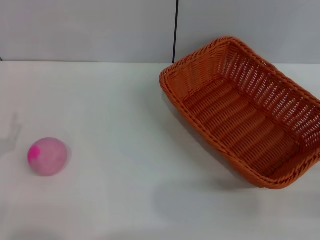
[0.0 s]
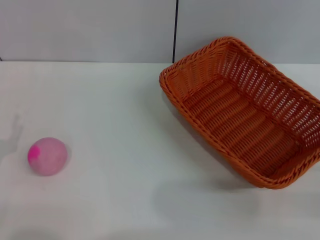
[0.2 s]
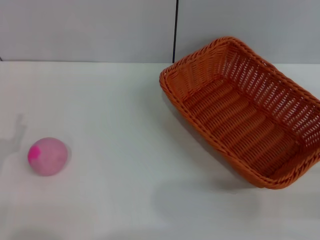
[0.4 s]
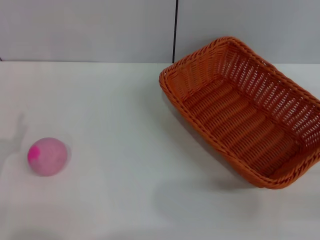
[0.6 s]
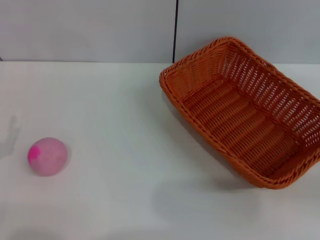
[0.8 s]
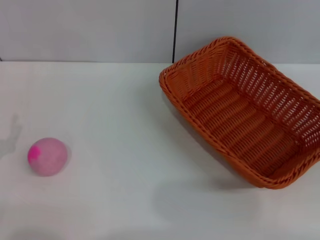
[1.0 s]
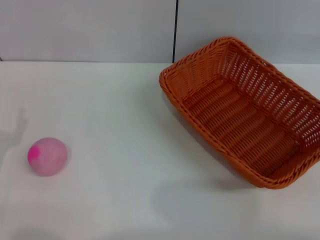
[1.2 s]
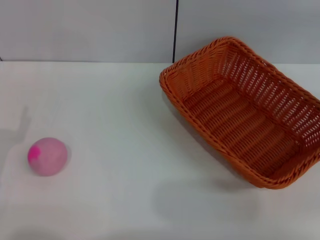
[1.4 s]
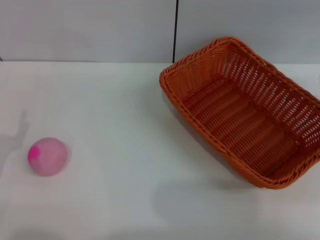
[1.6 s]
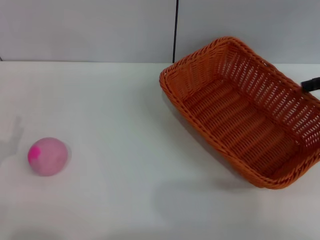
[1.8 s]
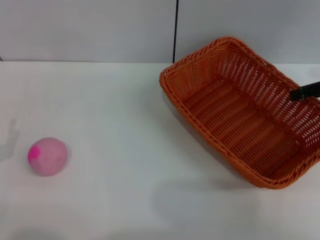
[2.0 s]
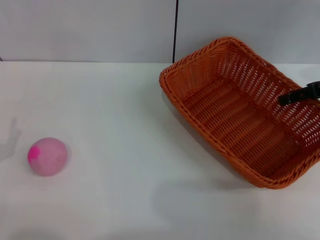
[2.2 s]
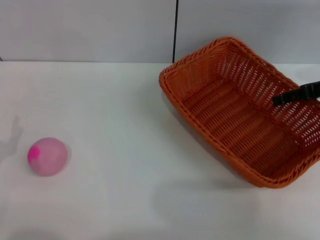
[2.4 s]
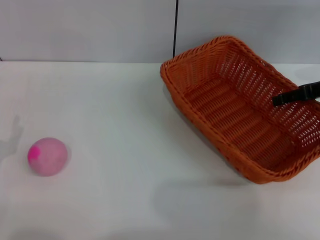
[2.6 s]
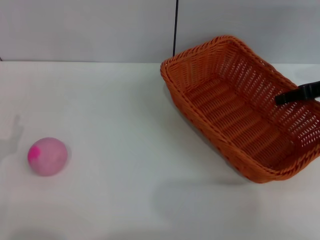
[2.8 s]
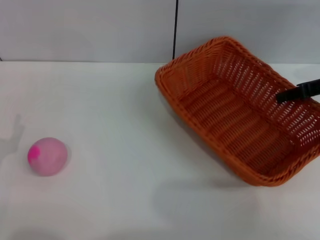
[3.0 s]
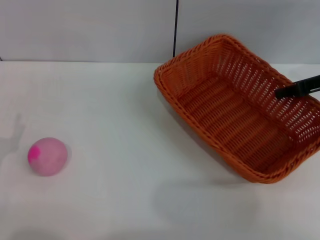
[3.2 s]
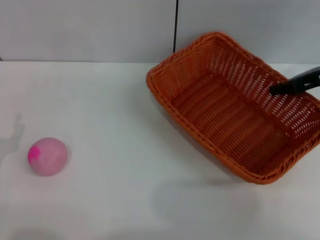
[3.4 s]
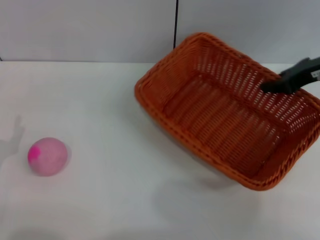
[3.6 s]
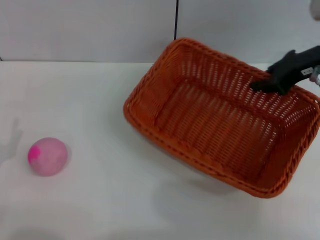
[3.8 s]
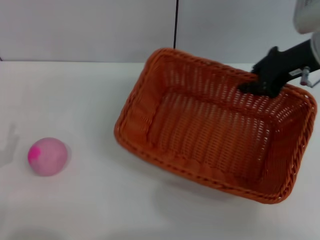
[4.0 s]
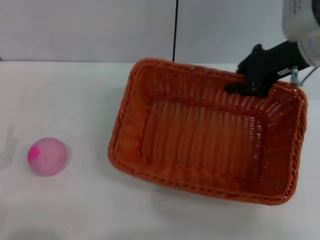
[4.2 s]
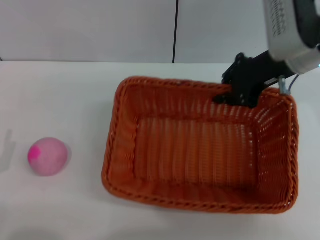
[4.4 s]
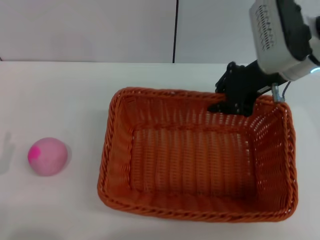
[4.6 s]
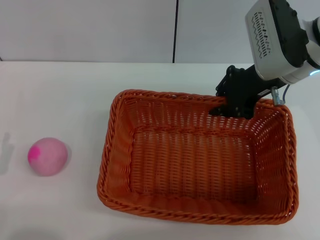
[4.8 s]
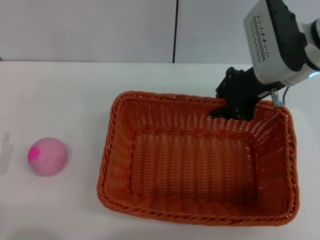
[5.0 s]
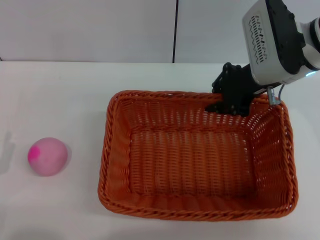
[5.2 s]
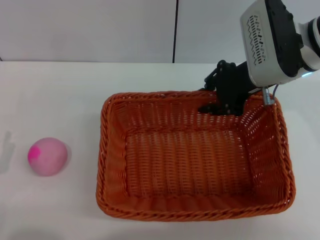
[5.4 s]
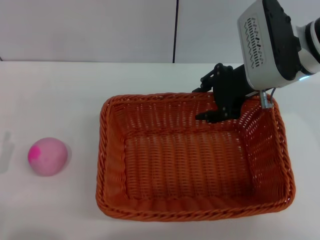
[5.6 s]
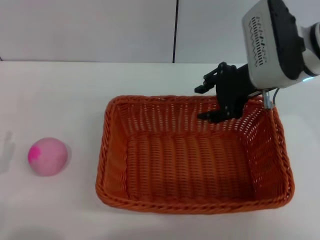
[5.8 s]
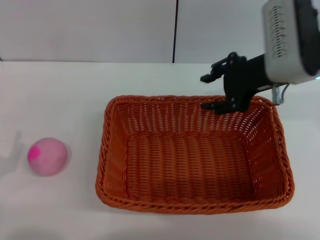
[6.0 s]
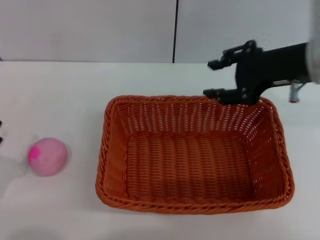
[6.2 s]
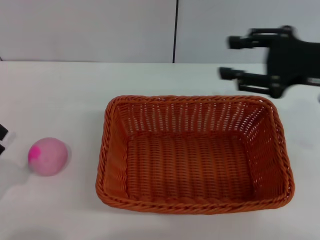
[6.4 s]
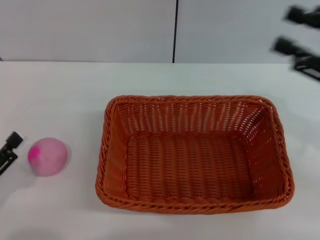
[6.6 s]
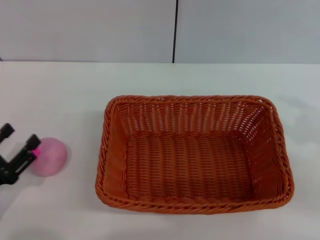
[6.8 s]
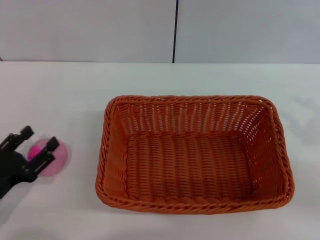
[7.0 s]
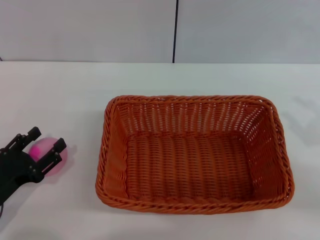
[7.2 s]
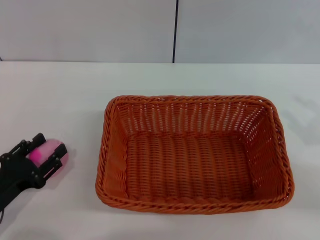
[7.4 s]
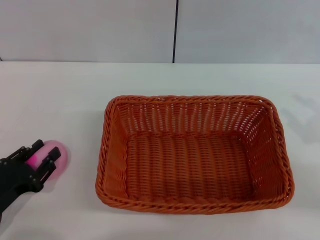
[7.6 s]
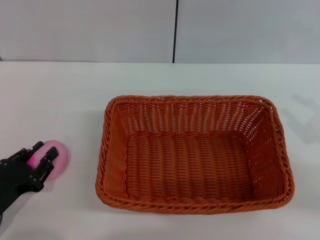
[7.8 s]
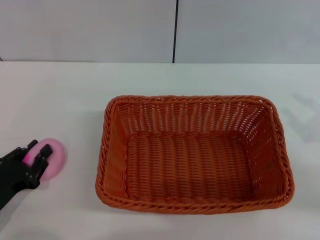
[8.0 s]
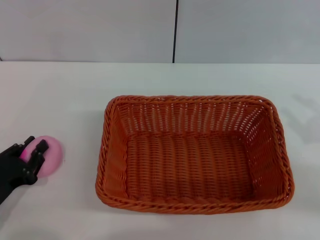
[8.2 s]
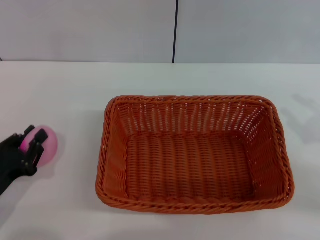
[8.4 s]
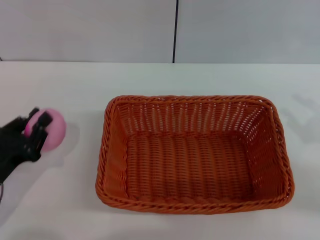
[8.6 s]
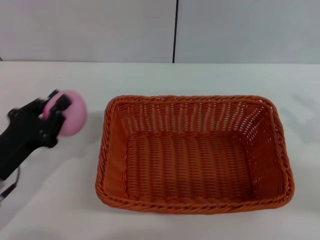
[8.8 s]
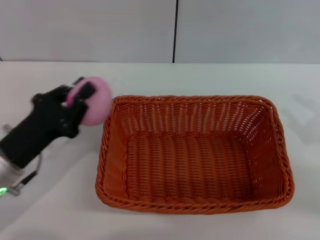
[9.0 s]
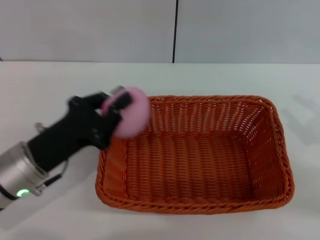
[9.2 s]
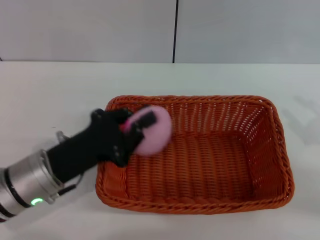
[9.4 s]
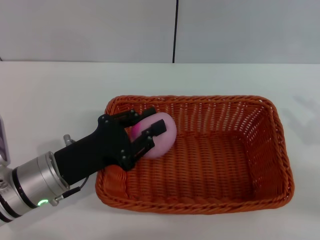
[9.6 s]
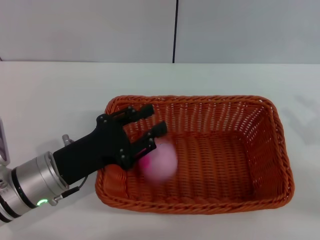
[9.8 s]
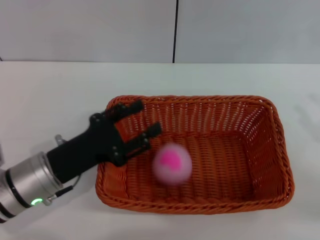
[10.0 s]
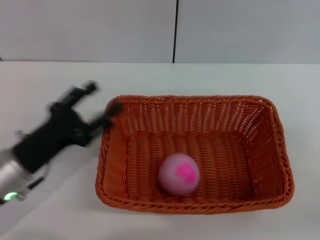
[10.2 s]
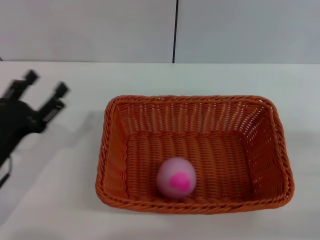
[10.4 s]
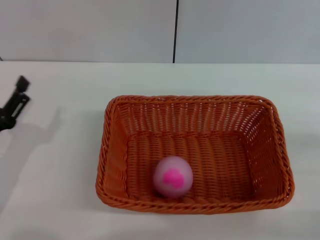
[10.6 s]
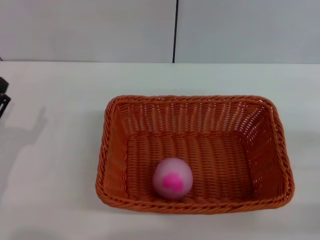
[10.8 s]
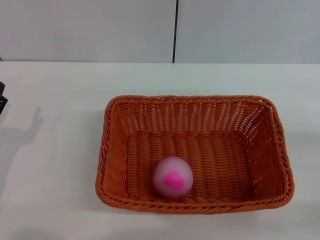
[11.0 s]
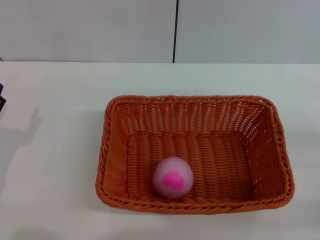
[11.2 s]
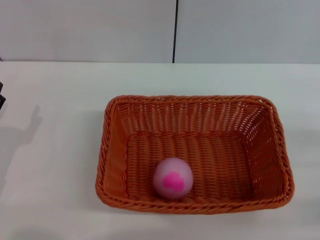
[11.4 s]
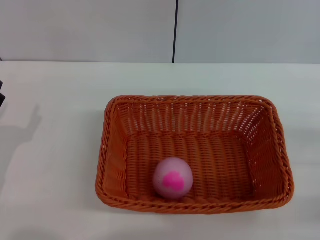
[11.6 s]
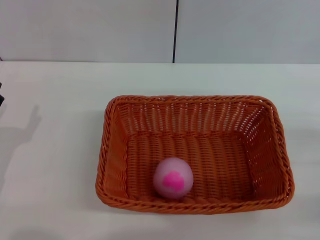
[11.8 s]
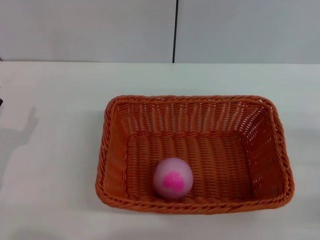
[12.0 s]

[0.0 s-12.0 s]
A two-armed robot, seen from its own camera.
Step, 0.0 to 3.6 s: Pick up the light basket with the right gripper.
Step, 3.8 to 6.0 s: Place the light basket in the center of view with the right gripper.
Step, 6.2 to 8.8 s: Pick up the peach with the left gripper.
Step, 9.0 to 10.0 s: Place the peach into the basket with the left gripper.
1.6 to 3.0 s: The right gripper goes roughly 10 cm to the left and downward, and closes up.
3.0 to 4.4 s: The right gripper goes about 10 cm to the left, and closes.
4.4 to 6.0 s: The right gripper opens.
6.0 to 7.6 s: The right gripper travels to the right, backward and downward by about 20 cm.
7.6 to 9.0 s: The left gripper heads forward, upward and to the right, covering about 10 cm, and closes its fingers.
9.0 to 10.4 s: The left gripper goes to the right and returns, approximately 5 cm each way, and opens. Meanwhile the right gripper ends up roughly 5 cm from where it was.

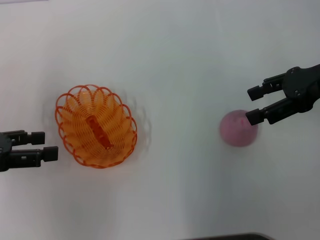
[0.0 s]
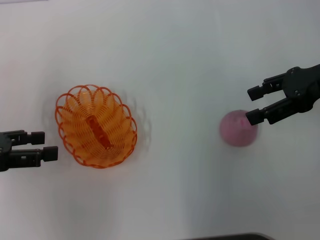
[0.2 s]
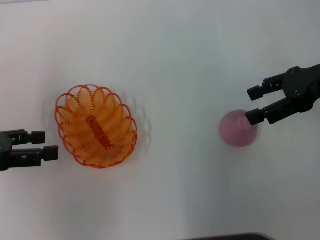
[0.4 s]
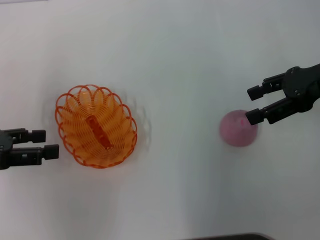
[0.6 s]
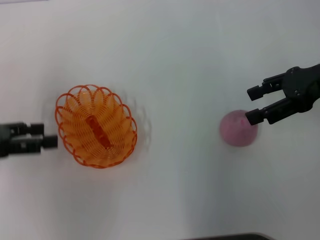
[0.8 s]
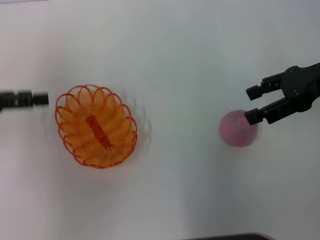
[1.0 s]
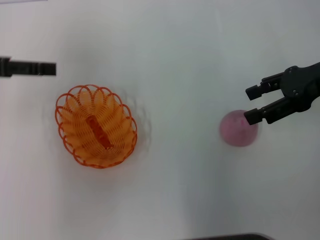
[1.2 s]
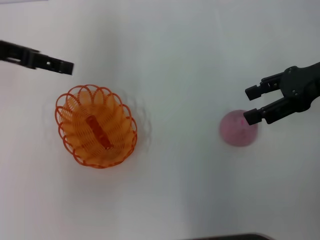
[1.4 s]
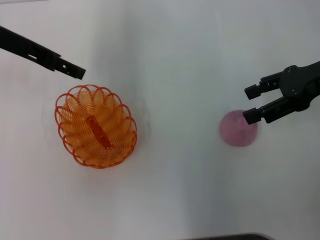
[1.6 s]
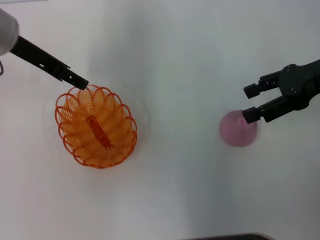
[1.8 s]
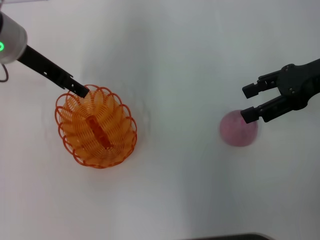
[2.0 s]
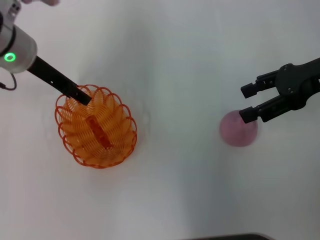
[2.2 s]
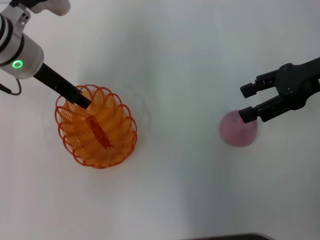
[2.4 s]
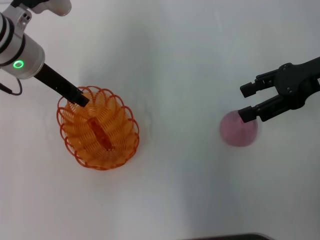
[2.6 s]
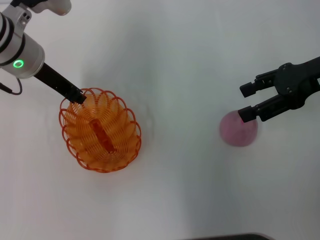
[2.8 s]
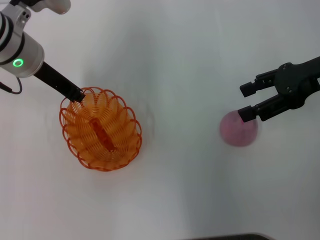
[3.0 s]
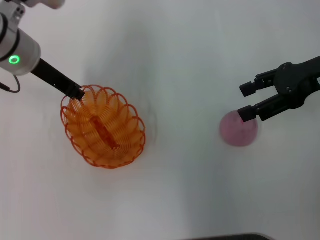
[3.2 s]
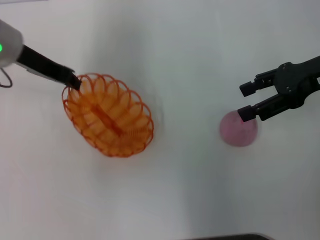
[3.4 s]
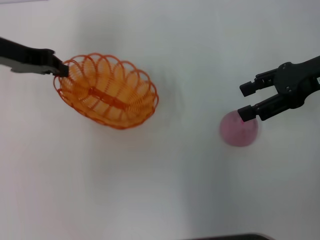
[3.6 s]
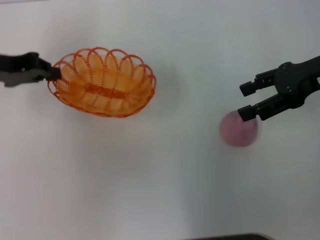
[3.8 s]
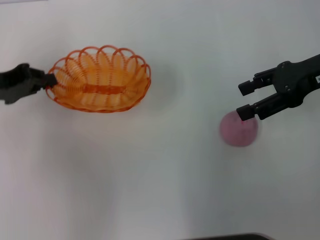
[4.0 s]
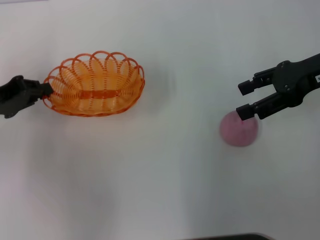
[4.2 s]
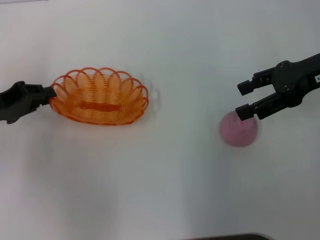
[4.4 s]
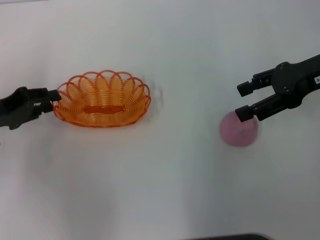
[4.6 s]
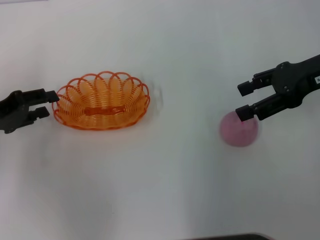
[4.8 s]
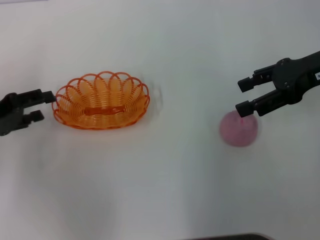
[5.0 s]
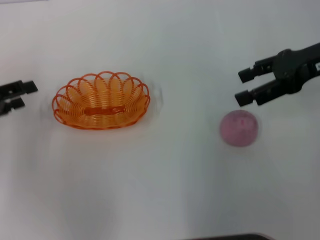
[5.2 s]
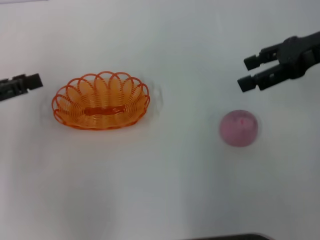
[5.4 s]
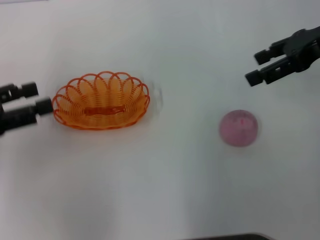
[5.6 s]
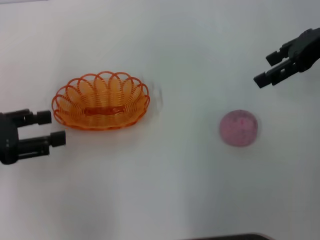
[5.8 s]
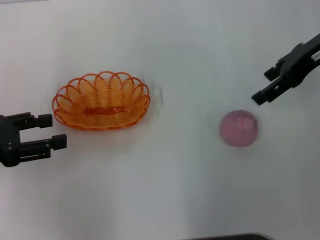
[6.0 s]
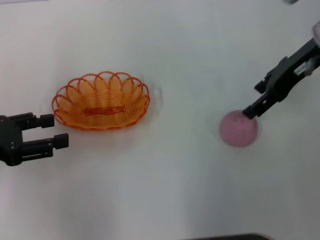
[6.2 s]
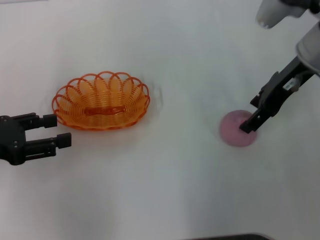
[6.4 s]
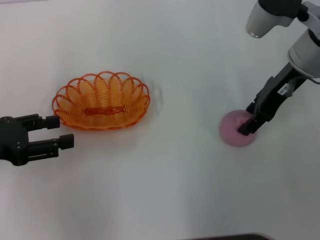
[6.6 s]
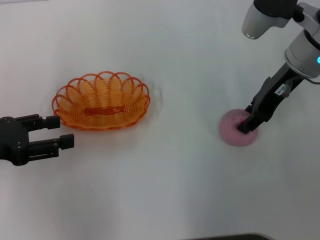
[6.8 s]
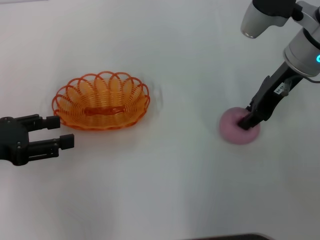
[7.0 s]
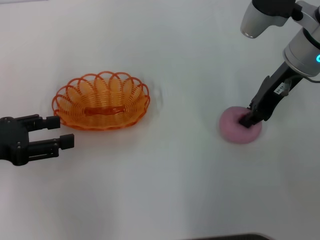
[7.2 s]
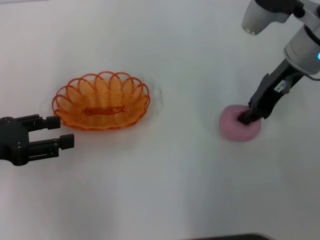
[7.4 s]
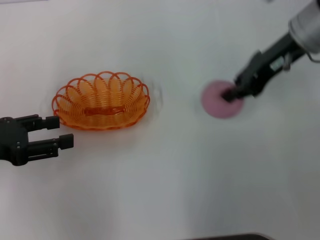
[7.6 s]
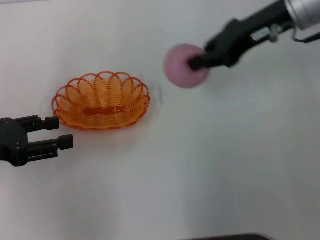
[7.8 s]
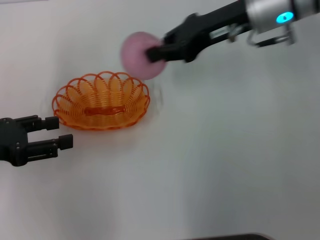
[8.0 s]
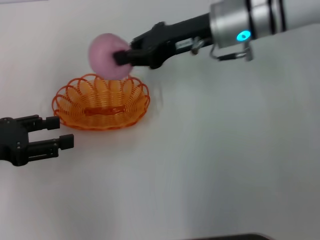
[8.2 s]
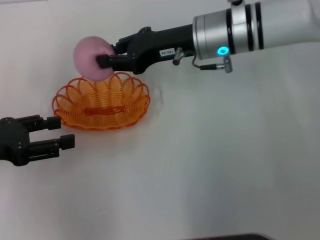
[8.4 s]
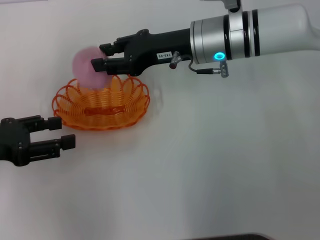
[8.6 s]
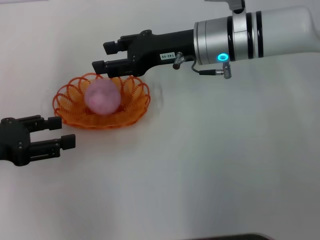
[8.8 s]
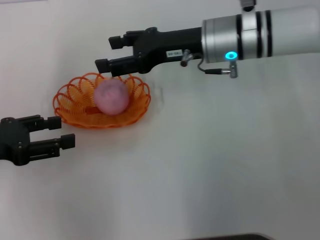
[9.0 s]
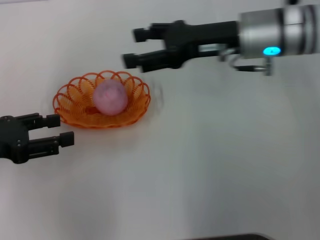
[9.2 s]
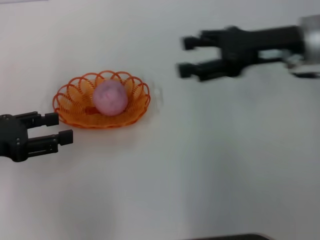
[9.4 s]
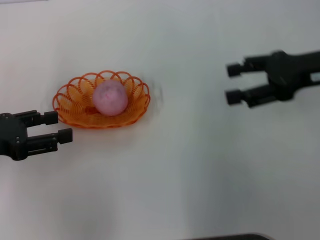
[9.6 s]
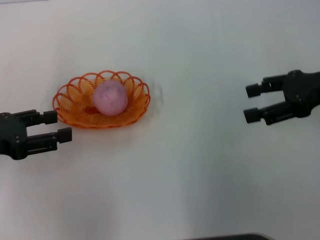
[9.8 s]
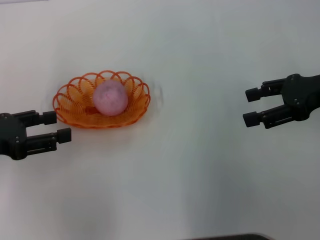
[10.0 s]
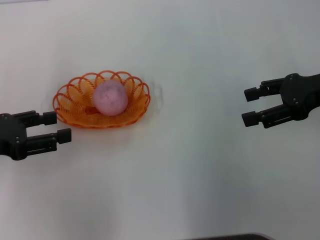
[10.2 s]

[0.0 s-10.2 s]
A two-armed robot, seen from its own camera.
Step, 0.0 to 3.6 s: Pick up the basket with the left gripper.
Step, 4.0 to 5.8 s: Place the basket in the center of view with the left gripper.
Step, 6.0 to 7.6 s: Pick up the peach with the right gripper.
Step, 7.8 to 9.2 s: Place the peach into the basket with the right gripper.
0.0 to 1.4 s: The left gripper heads forward, upward and to the right, covering about 15 cm.
1.4 to 3.0 s: The left gripper moves to the right and downward, roughly 10 cm, and closes up.
3.0 to 4.4 s: The left gripper travels to the left, backward and downward by some 15 cm.
4.4 to 5.8 s: The left gripper is displaced backward by approximately 5 cm, and opens up; the right gripper shifts by some 5 cm.
5.8 to 7.2 s: The right gripper travels to the left and downward by about 10 cm, and closes up.
7.2 to 8.8 s: The right gripper heads to the left, covering roughly 10 cm.
8.8 to 10.2 s: The right gripper is displaced to the right and backward by approximately 20 cm, and opens up.
